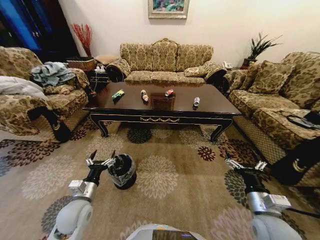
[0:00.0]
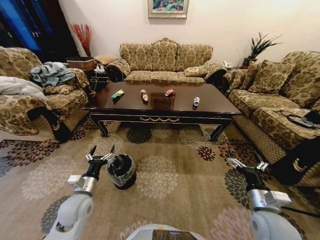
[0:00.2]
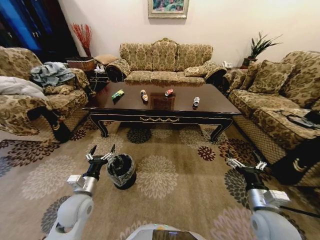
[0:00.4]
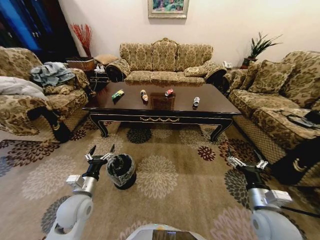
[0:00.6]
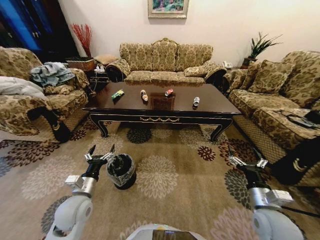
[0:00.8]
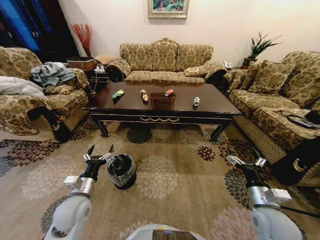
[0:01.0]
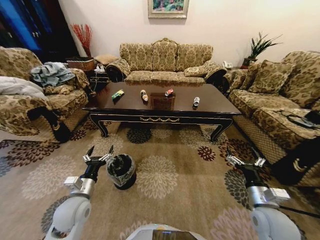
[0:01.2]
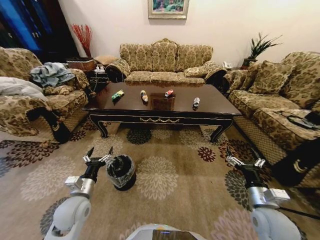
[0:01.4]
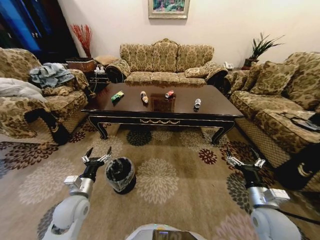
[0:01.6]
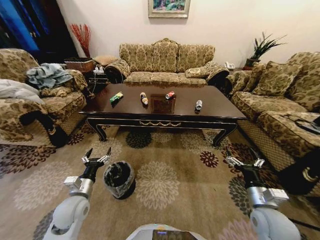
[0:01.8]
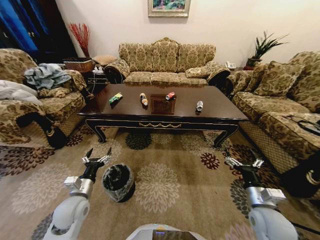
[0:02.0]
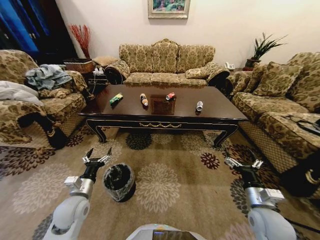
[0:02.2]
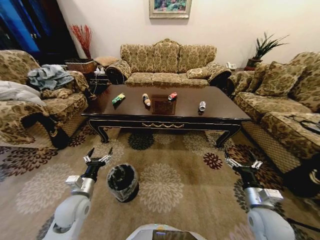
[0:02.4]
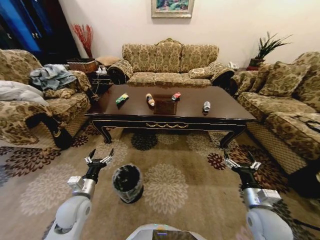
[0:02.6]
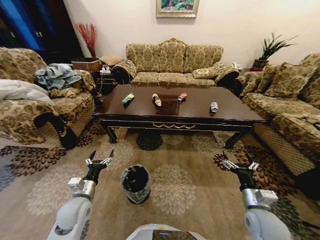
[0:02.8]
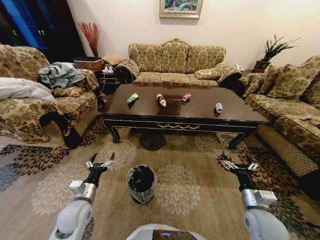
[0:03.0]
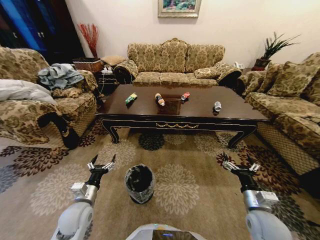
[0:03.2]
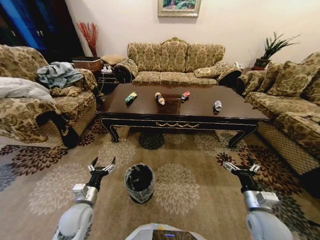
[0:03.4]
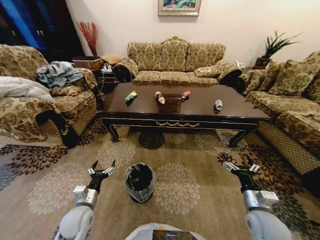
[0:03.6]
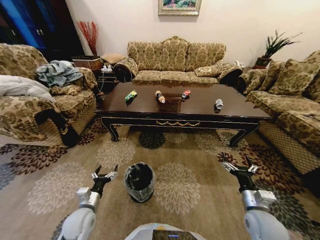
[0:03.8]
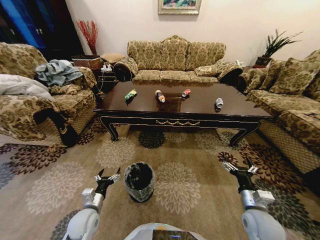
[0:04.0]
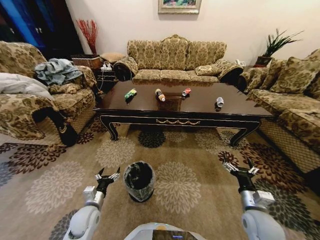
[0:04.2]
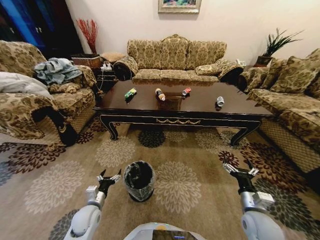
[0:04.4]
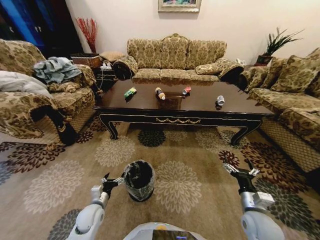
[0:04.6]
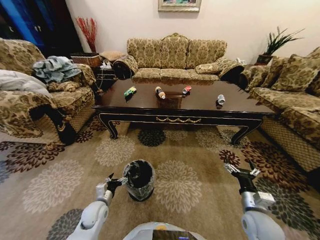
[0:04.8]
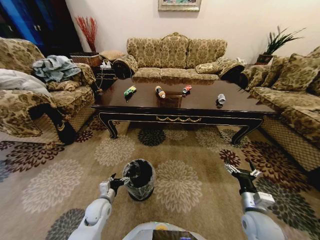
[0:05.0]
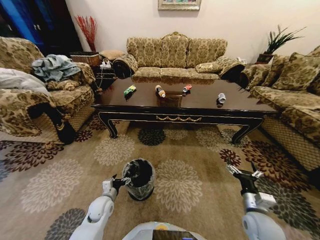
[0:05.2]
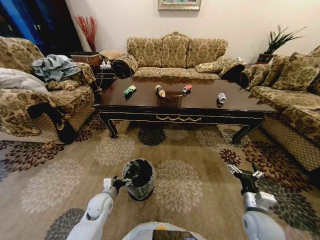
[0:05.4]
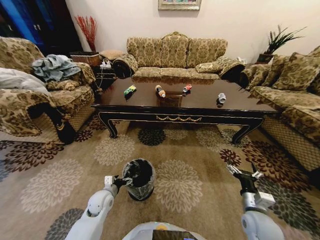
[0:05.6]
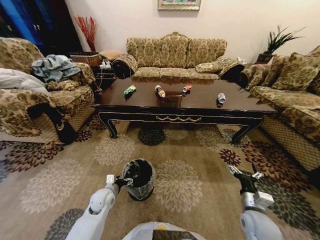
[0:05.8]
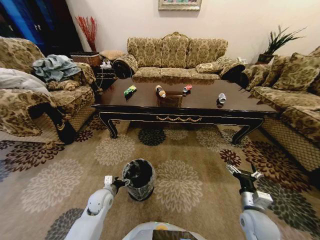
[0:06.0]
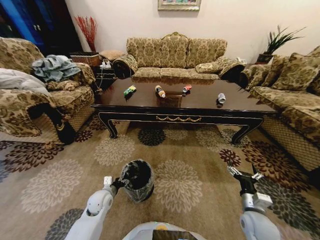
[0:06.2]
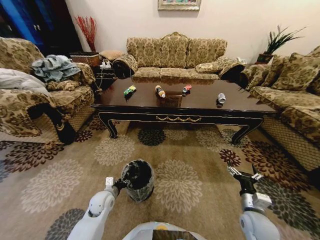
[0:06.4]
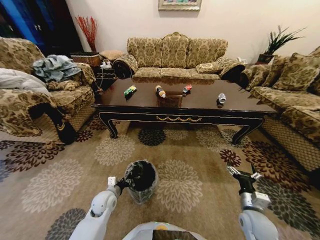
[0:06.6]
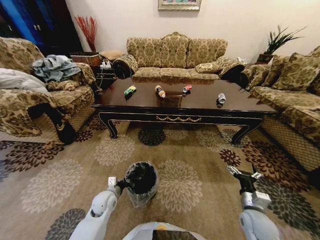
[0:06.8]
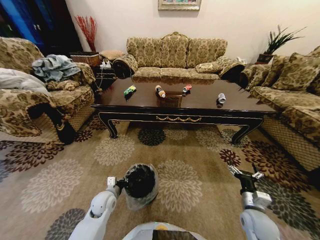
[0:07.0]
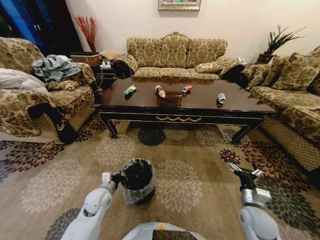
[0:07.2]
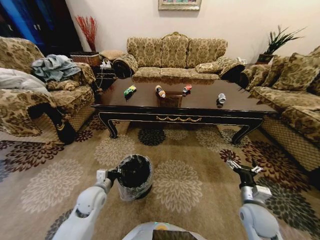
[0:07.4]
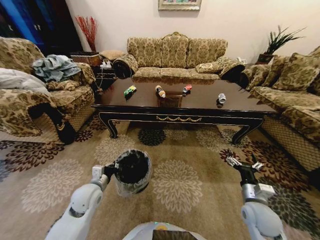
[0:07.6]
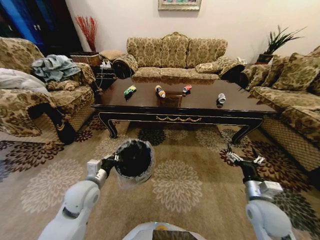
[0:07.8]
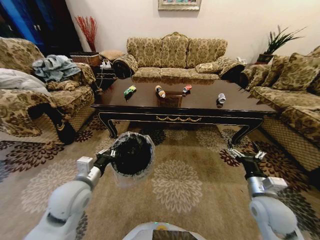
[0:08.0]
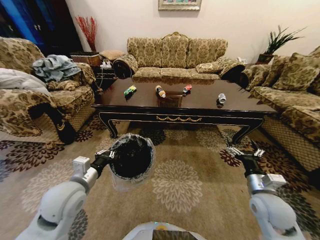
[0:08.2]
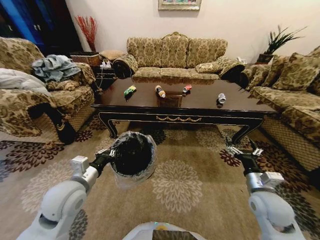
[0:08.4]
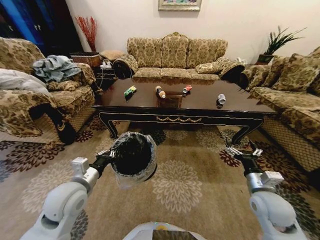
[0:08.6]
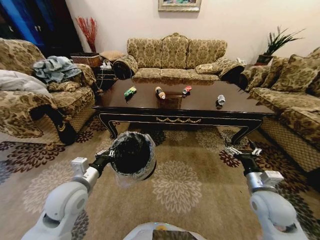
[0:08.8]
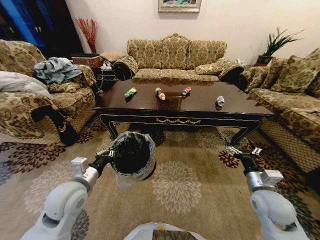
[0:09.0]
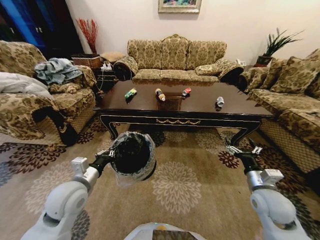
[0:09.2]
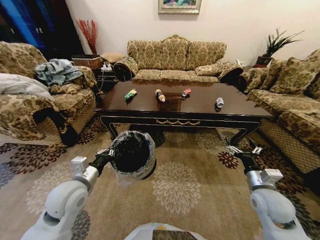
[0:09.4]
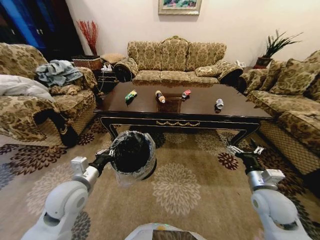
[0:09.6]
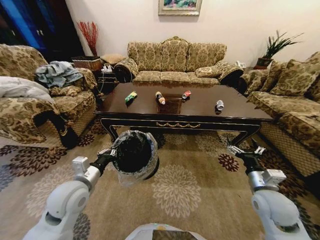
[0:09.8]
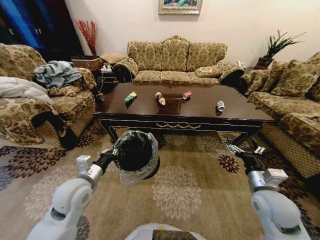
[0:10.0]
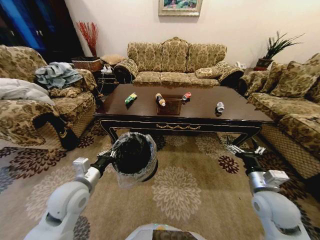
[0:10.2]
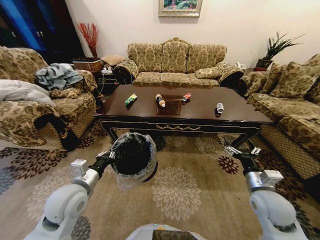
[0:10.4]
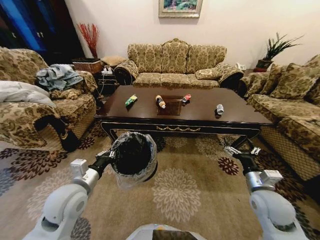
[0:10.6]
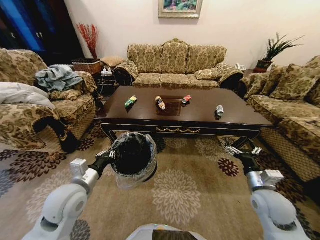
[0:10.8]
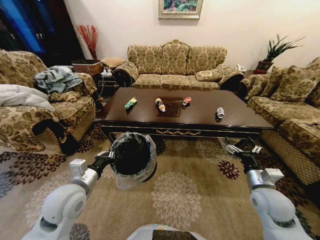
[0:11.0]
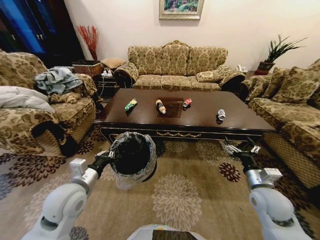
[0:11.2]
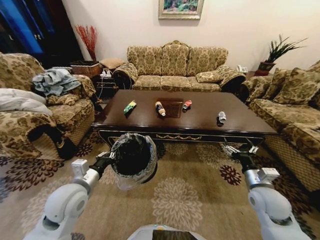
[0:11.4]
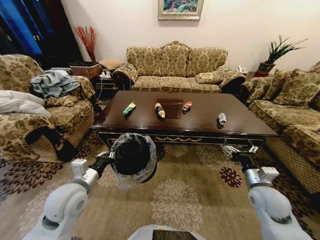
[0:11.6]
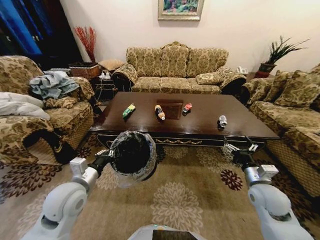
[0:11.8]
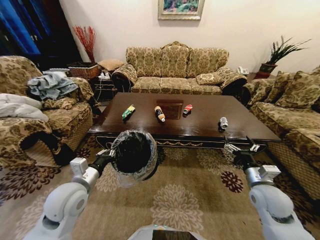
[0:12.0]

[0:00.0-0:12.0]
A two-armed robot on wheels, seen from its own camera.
Task of the whole recording: Move to the front of the table and place the trash on the table into the trash bin.
0:03.0 to 0:04.4: The left gripper moves downward, about 10 cm.
0:04.4 to 0:06.0: The left gripper heads forward, covering some 5 cm.
0:06.0 to 0:07.6: The left gripper is displaced upward by about 10 cm, and closes its fingers.
0:07.6 to 0:09.0: The left gripper goes about 10 cm upward, while the right gripper is displaced upward by approximately 5 cm.

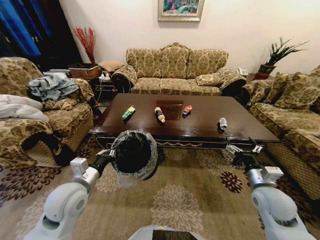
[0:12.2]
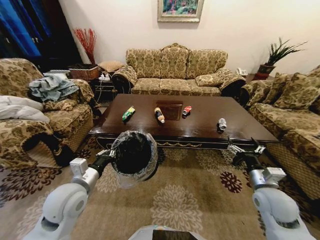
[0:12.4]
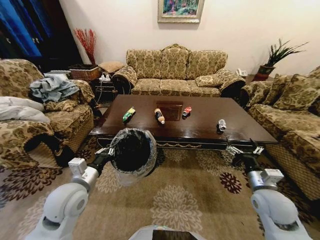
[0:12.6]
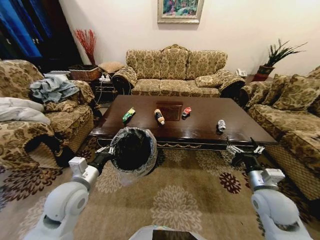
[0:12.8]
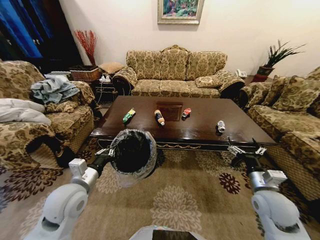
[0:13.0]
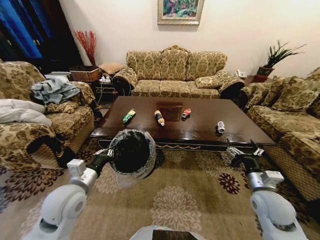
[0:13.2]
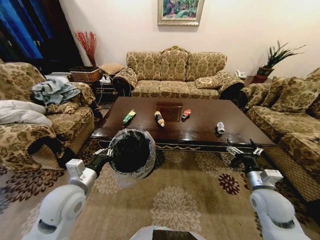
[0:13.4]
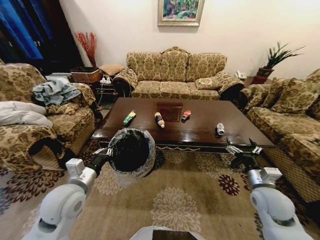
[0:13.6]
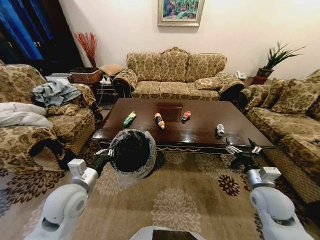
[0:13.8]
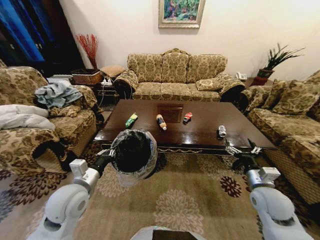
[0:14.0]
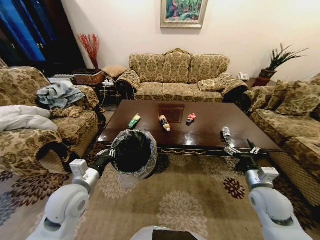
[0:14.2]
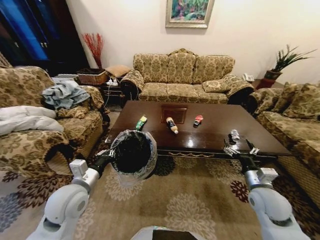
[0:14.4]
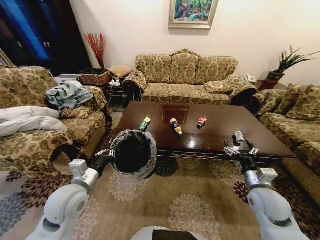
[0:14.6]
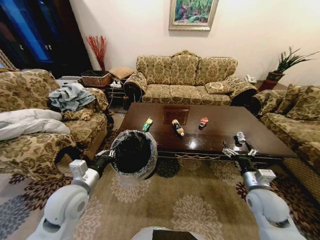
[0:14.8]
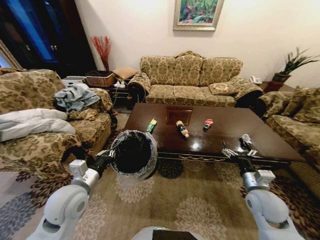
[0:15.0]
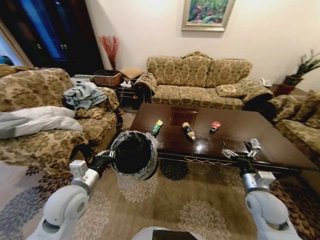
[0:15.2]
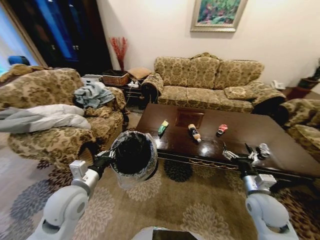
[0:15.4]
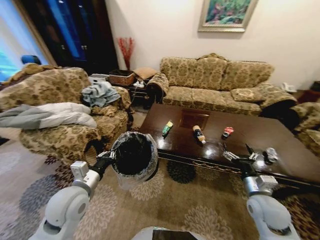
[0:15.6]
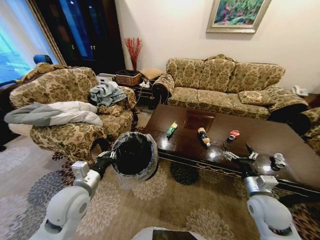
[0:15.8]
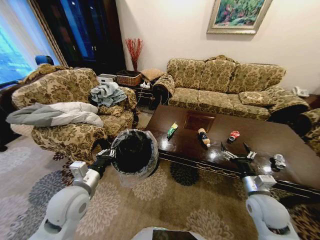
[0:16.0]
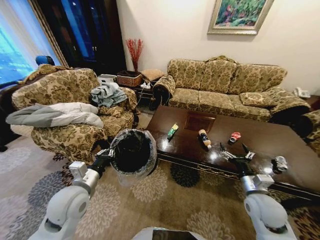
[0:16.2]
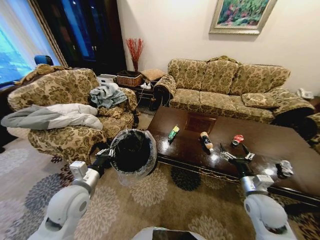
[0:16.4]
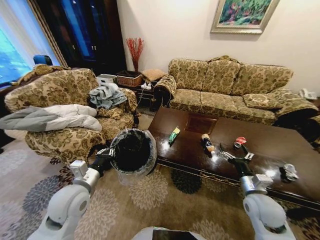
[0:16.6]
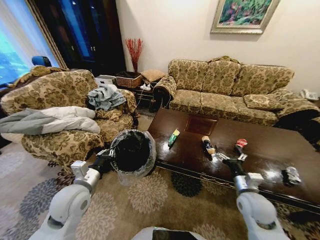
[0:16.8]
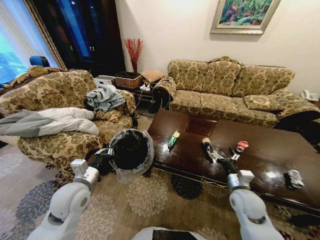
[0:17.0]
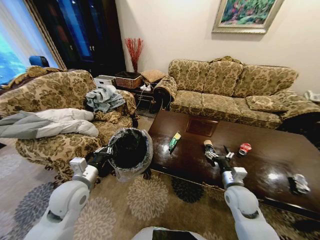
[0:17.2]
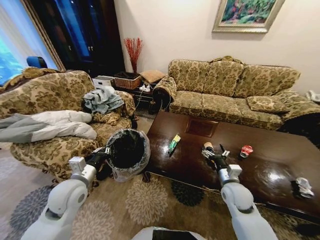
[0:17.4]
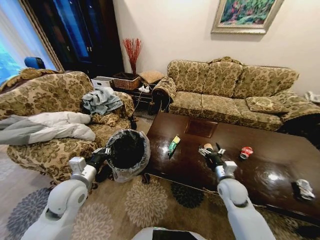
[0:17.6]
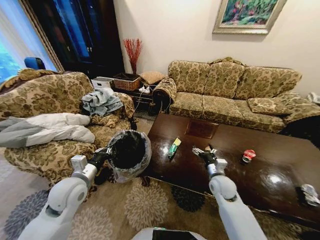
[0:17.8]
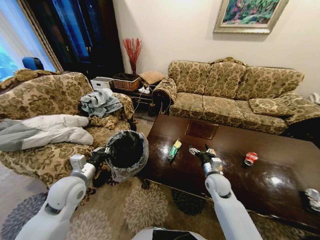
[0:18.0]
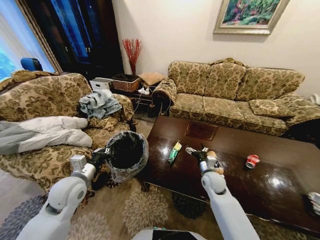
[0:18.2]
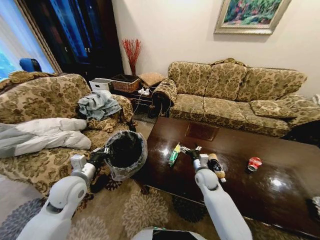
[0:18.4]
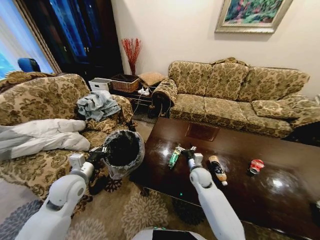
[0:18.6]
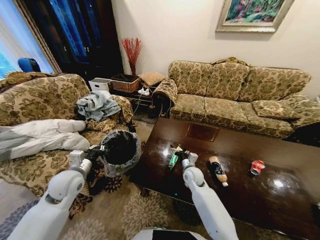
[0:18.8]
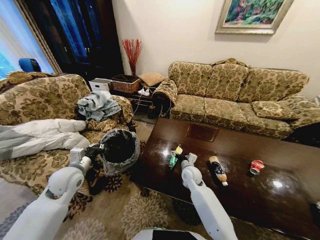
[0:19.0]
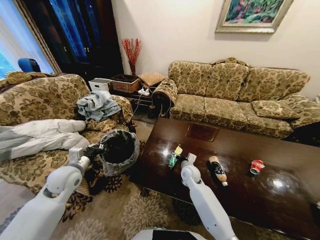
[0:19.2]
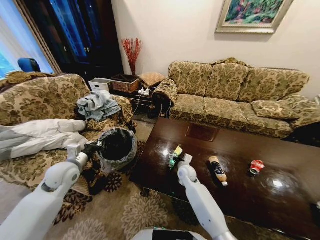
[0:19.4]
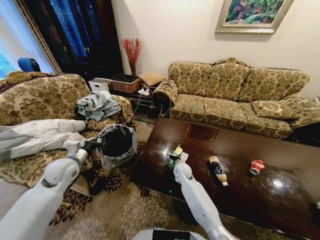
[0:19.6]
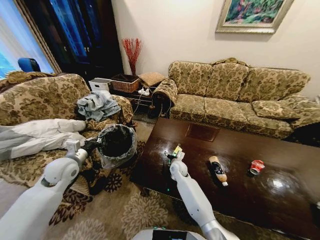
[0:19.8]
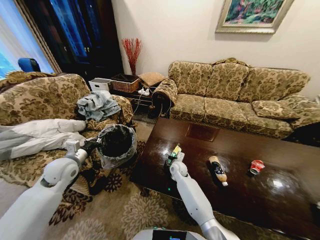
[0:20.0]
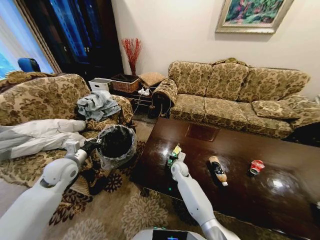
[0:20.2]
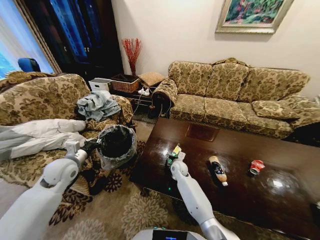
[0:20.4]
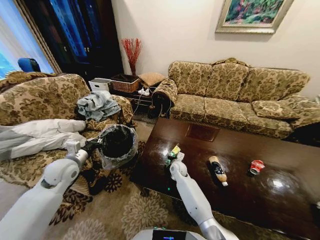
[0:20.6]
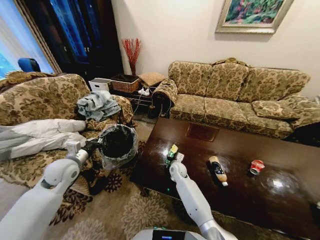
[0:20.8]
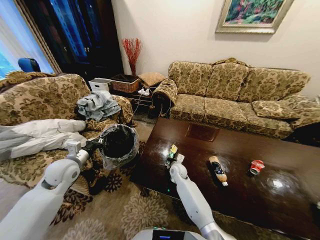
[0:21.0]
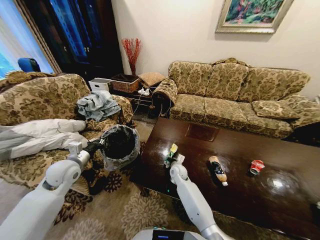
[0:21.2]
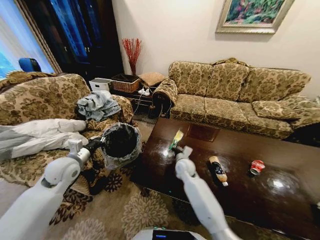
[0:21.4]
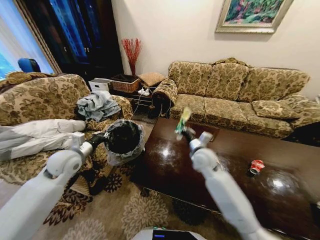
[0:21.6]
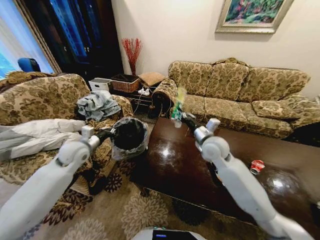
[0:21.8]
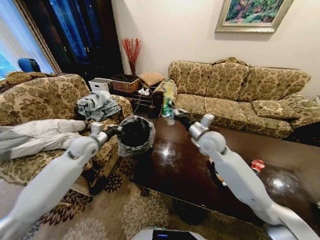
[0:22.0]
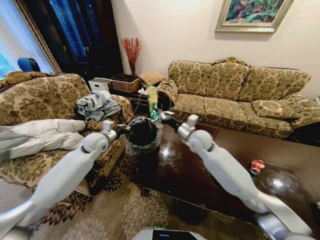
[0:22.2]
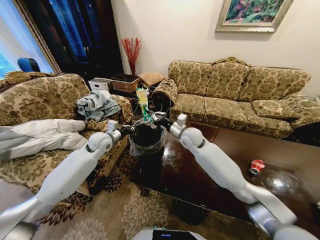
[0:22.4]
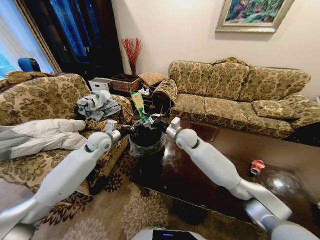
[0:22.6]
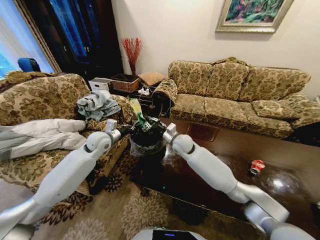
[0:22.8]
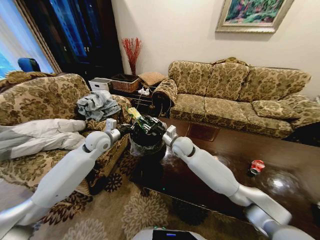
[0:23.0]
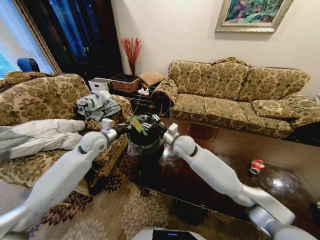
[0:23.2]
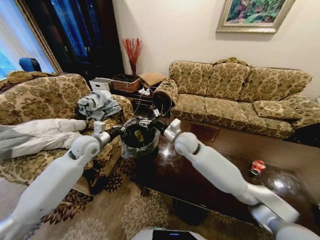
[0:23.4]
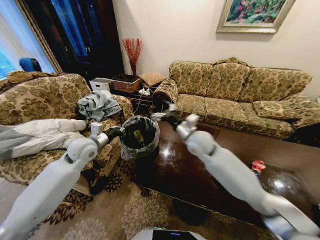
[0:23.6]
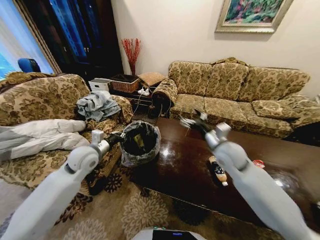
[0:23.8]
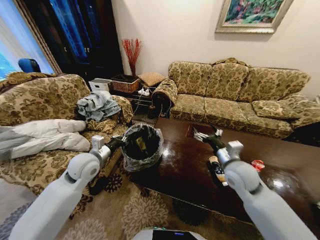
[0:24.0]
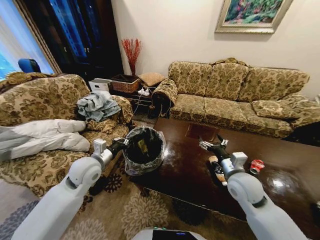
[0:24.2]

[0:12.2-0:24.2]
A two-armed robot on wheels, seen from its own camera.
Task of the whole recording: Move to the front of the table and place the trash on the table into the trash bin.
0:16.6 to 0:18.2: The right gripper moves forward, to the left and downward, some 15 cm.
0:18.2 to 0:19.8: The right gripper moves to the left and forward, approximately 15 cm. The left gripper goes some 10 cm forward and to the left.
0:19.8 to 0:21.2: The right gripper closes.
0:21.2 to 0:22.6: The left gripper shifts roughly 15 cm forward and to the right. The right gripper heads upward, covering about 20 cm.
0:22.6 to 0:24.2: The right gripper goes some 25 cm backward and to the right, and opens up; the left gripper shifts some 15 cm backward.
